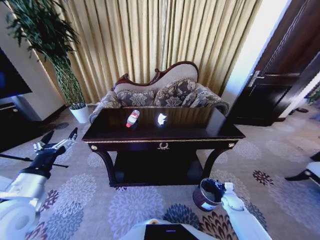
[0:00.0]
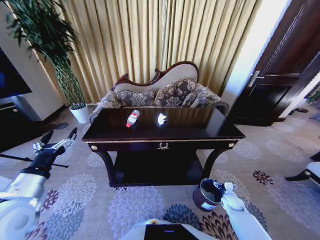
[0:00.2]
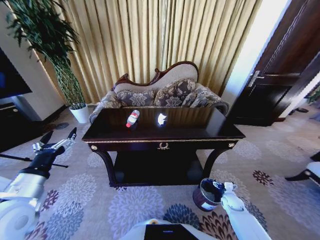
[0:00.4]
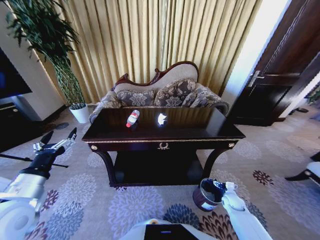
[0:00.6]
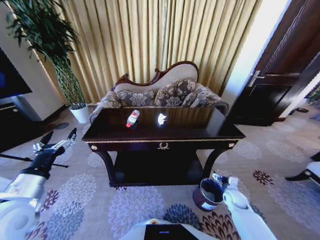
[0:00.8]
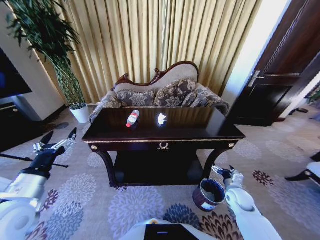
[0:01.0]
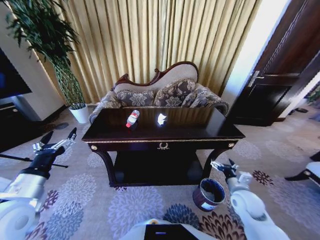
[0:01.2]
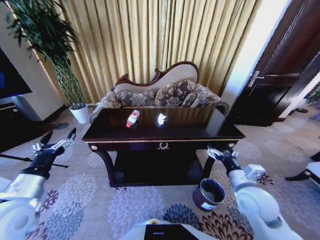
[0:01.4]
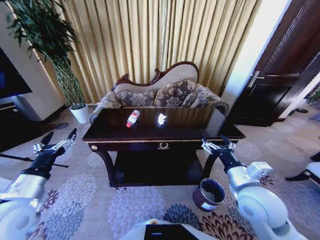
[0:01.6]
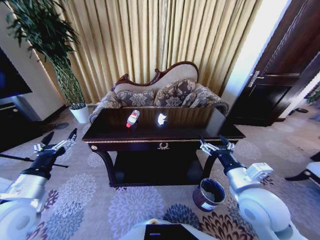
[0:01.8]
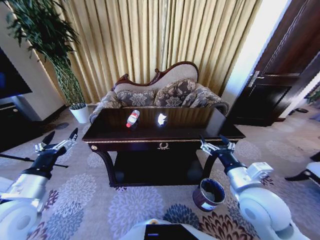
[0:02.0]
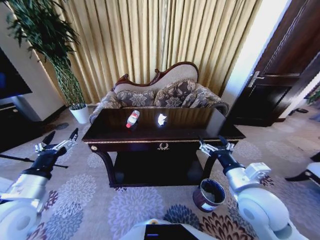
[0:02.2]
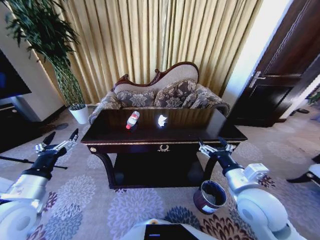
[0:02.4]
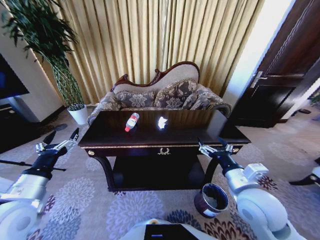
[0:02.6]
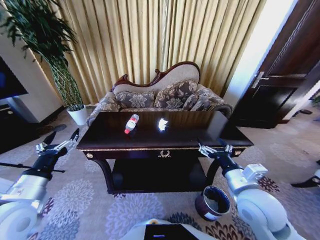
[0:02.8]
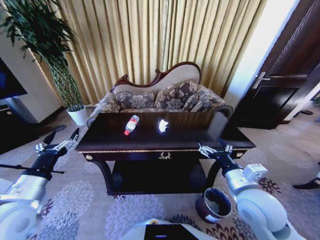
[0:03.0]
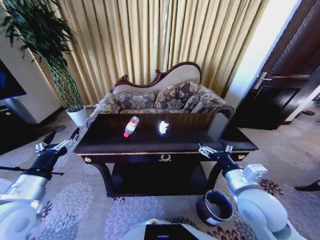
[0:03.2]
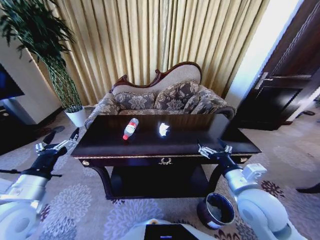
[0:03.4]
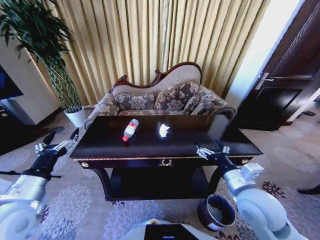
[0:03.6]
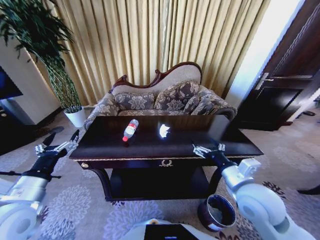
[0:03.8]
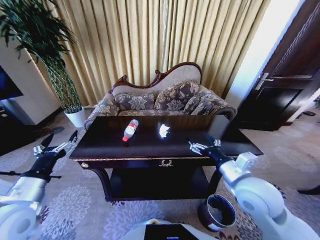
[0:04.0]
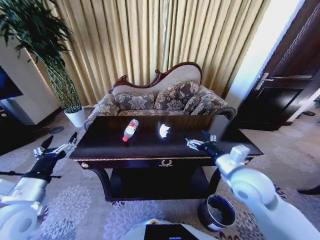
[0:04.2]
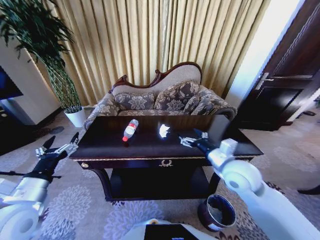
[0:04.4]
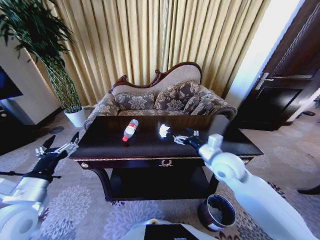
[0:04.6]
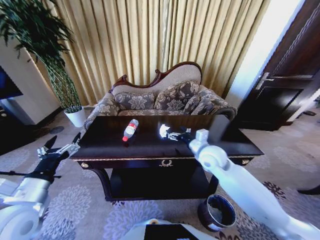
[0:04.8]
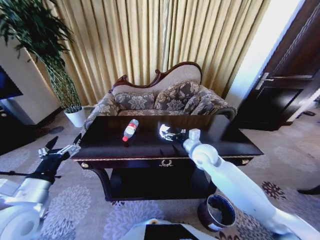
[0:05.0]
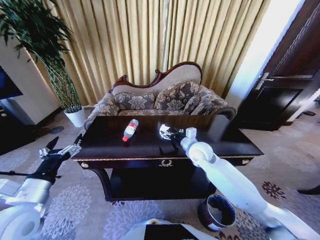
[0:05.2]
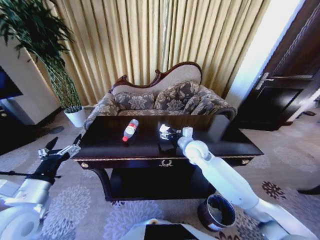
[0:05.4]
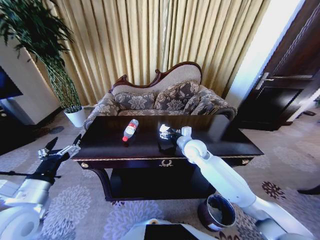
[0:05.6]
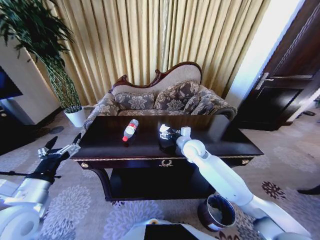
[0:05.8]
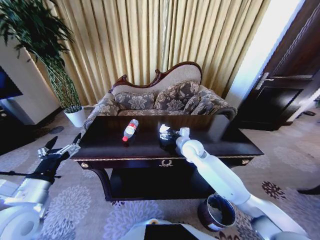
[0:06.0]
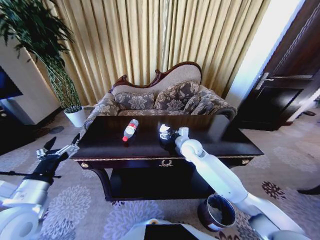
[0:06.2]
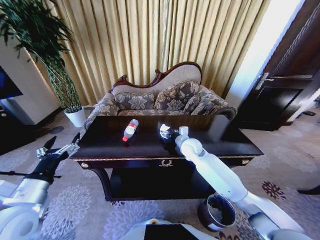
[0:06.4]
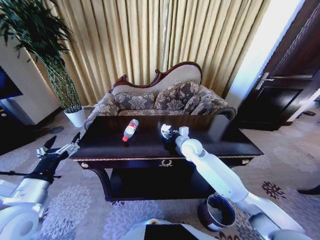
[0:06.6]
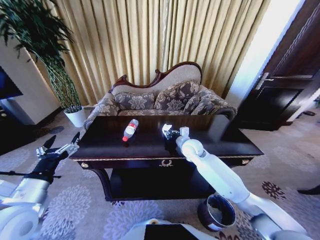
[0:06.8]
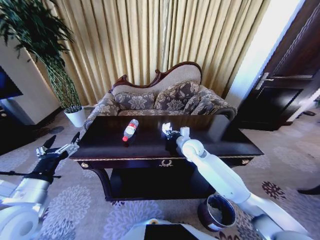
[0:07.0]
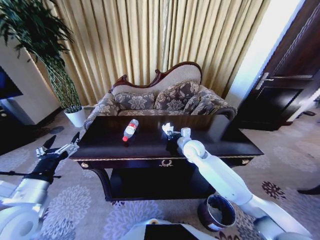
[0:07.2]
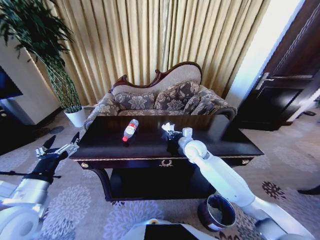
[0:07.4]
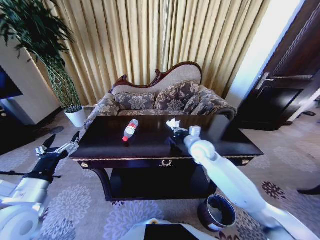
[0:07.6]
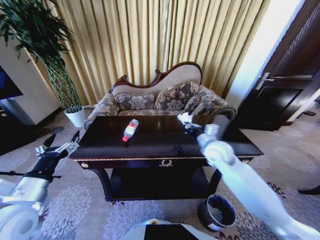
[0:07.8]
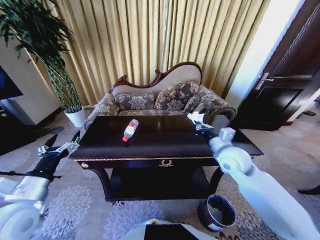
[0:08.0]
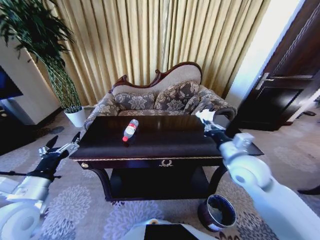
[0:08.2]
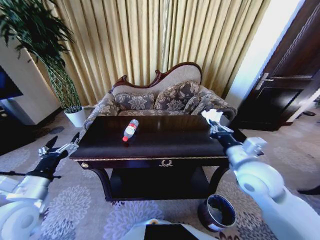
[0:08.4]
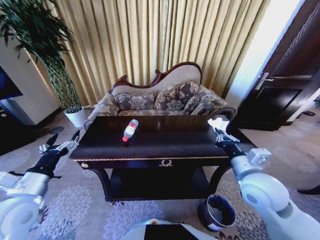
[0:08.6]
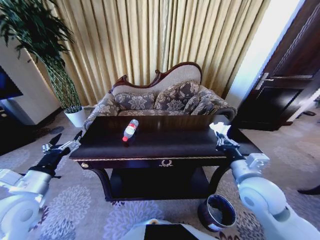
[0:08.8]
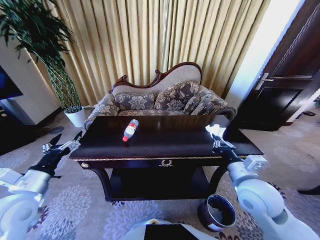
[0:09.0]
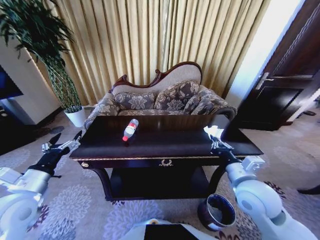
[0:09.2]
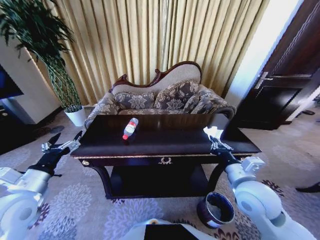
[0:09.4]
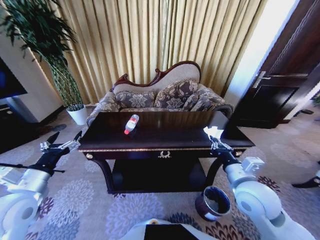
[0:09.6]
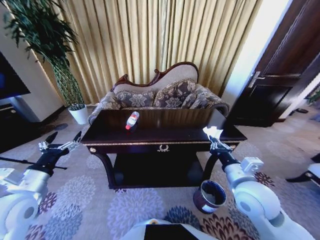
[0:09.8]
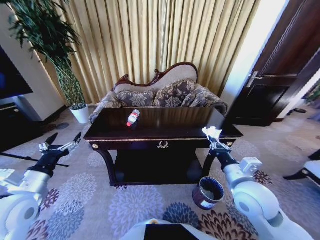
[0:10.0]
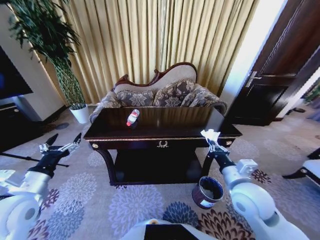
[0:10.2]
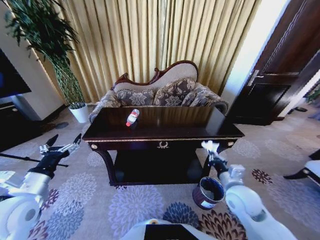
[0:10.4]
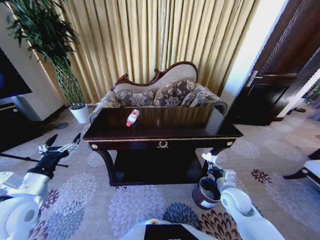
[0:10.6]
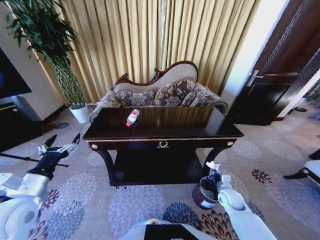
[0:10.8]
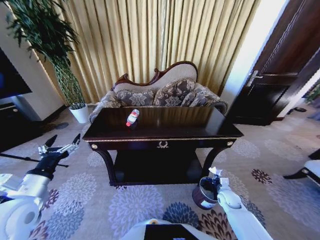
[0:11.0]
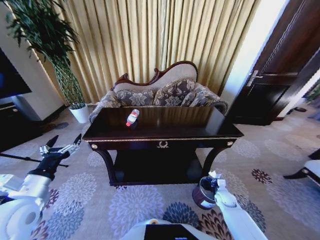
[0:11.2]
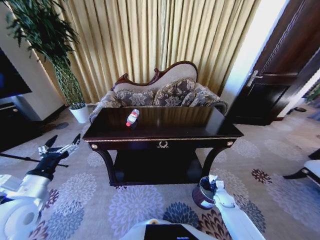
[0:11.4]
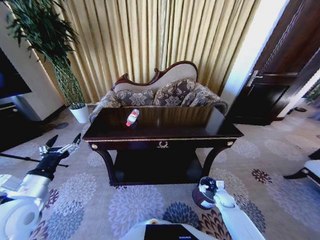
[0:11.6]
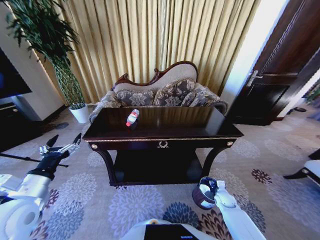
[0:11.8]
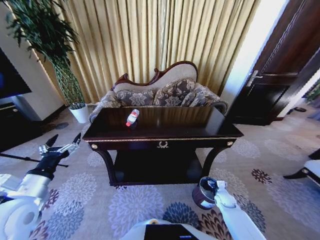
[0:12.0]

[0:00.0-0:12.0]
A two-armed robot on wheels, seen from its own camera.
Task of the whole recording: Move to the front of the table and place the trash on the table into the trash bin.
0:00.0 to 0:01.6: The right gripper shifts roughly 35 cm upward and to the left.
0:03.0 to 0:04.4: The right gripper goes some 10 cm forward.
0:04.4 to 0:06.0: The right gripper shifts approximately 20 cm forward, to the left and downward.
0:06.0 to 0:07.6: The right gripper changes place by roughly 5 cm, and closes its fingers.
0:07.6 to 0:09.0: The right gripper heads backward, covering approximately 20 cm.
0:09.0 to 0:10.4: The right gripper goes roughly 10 cm downward.
0:10.4 to 0:12.0: The right gripper goes roughly 25 cm downward, and opens up.

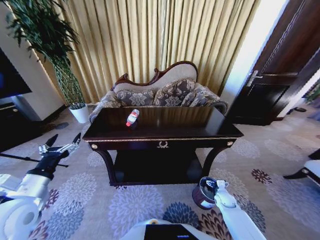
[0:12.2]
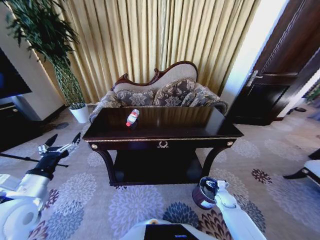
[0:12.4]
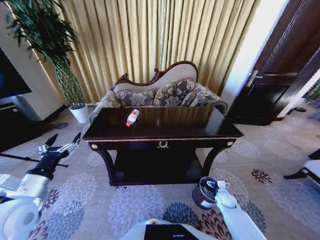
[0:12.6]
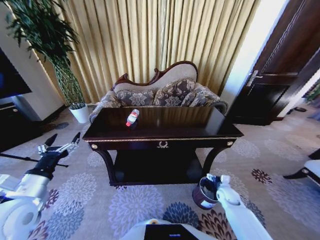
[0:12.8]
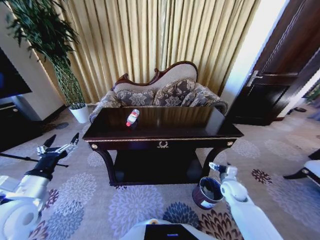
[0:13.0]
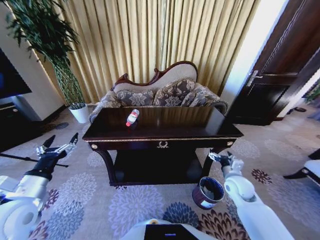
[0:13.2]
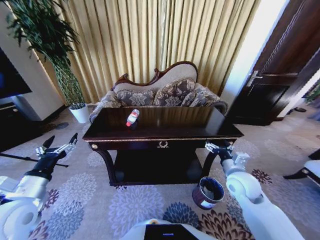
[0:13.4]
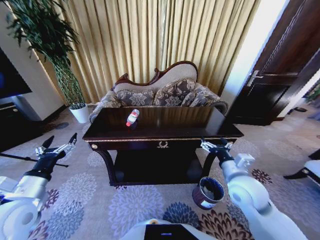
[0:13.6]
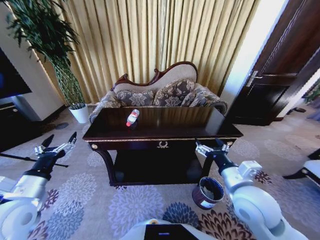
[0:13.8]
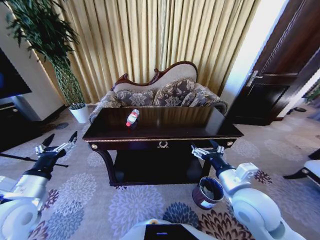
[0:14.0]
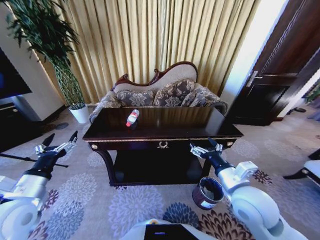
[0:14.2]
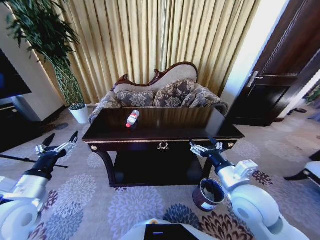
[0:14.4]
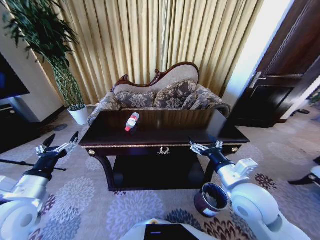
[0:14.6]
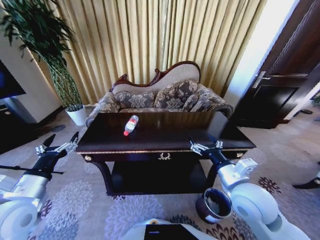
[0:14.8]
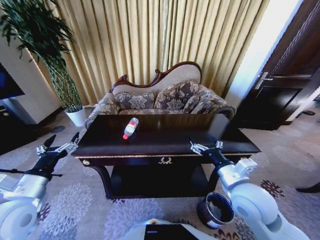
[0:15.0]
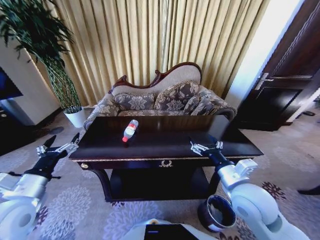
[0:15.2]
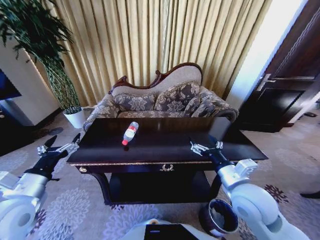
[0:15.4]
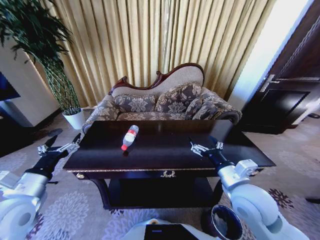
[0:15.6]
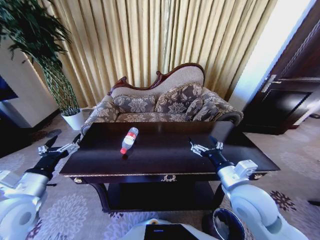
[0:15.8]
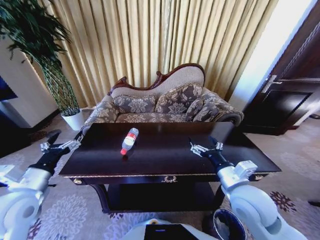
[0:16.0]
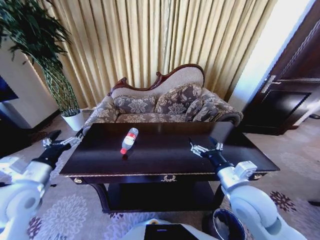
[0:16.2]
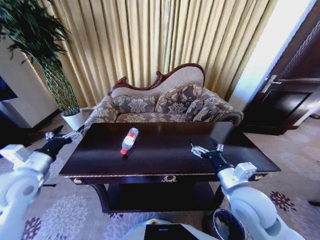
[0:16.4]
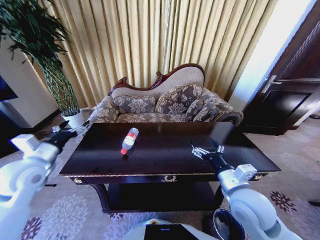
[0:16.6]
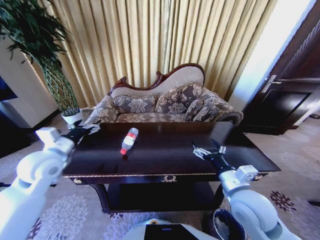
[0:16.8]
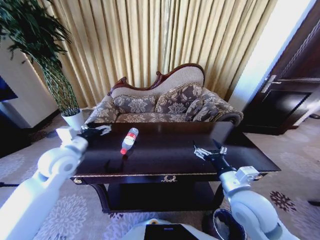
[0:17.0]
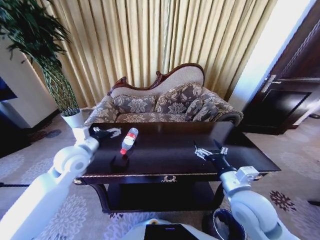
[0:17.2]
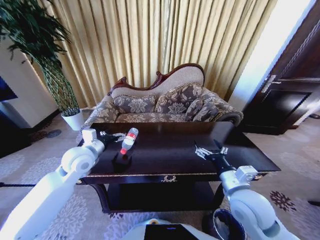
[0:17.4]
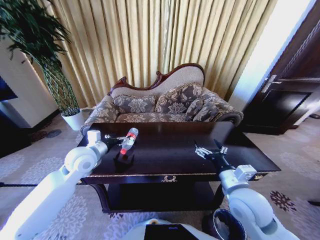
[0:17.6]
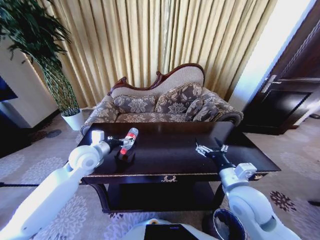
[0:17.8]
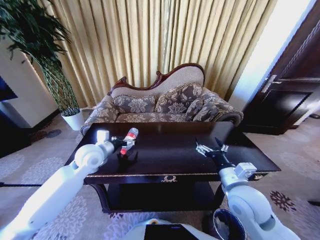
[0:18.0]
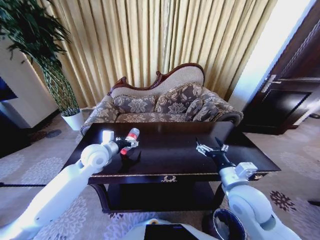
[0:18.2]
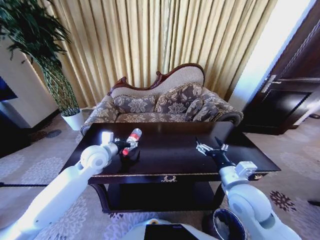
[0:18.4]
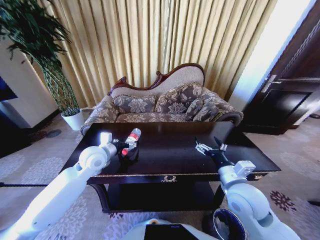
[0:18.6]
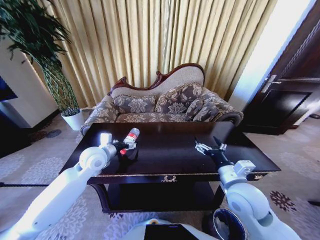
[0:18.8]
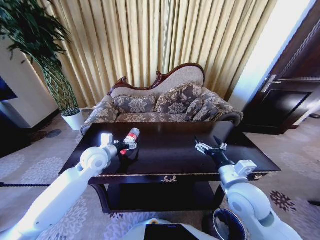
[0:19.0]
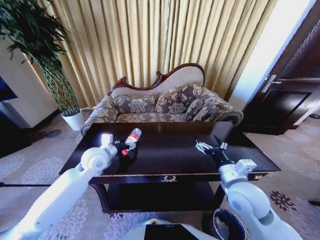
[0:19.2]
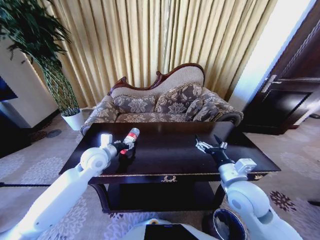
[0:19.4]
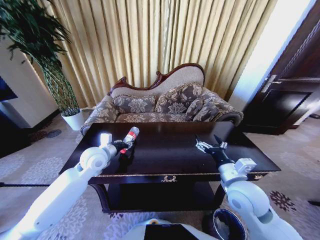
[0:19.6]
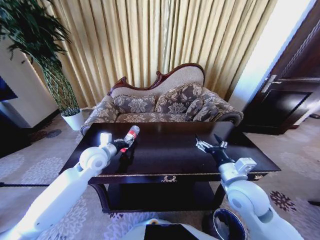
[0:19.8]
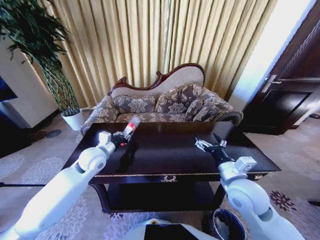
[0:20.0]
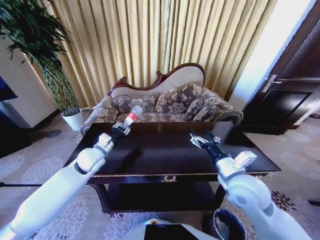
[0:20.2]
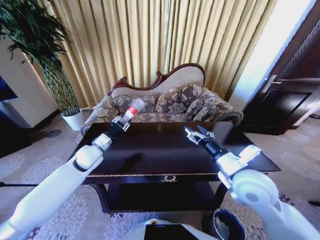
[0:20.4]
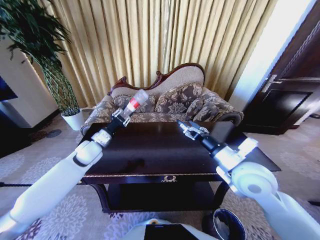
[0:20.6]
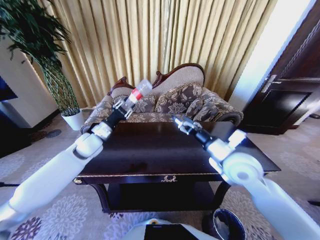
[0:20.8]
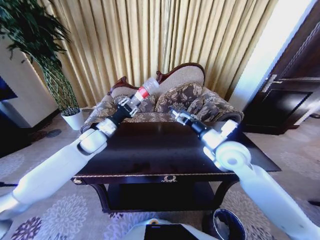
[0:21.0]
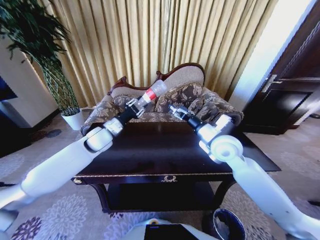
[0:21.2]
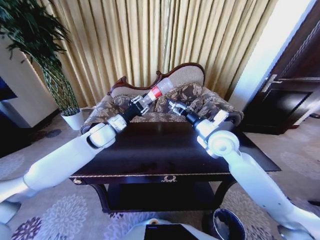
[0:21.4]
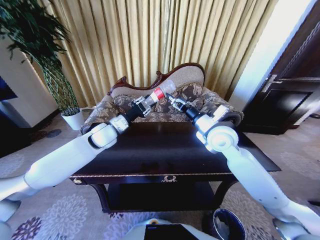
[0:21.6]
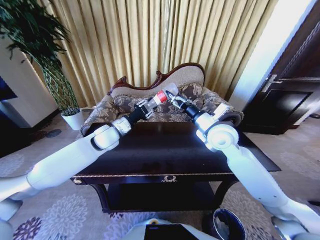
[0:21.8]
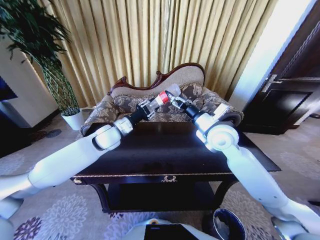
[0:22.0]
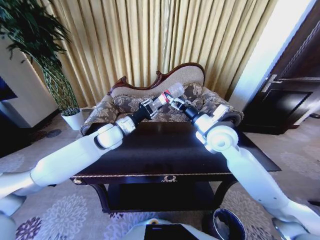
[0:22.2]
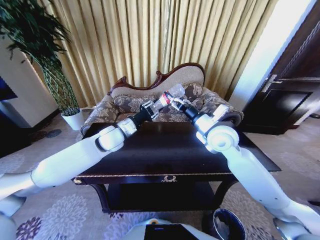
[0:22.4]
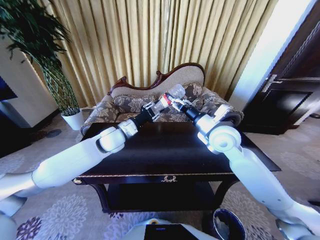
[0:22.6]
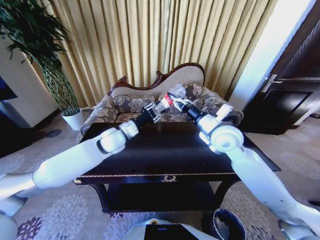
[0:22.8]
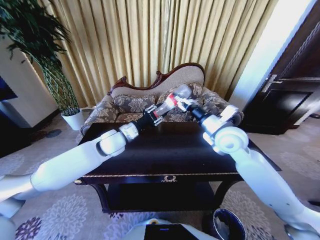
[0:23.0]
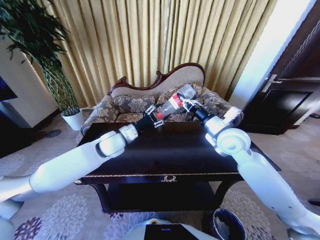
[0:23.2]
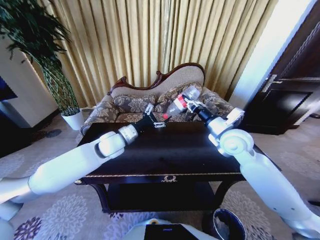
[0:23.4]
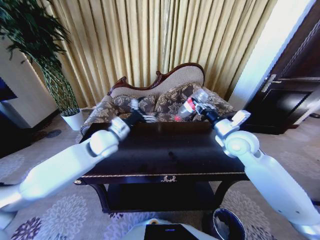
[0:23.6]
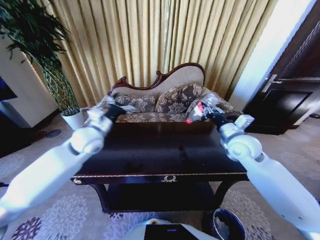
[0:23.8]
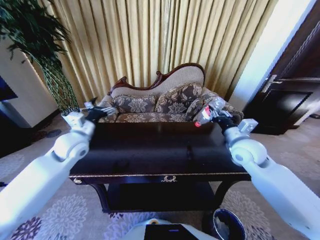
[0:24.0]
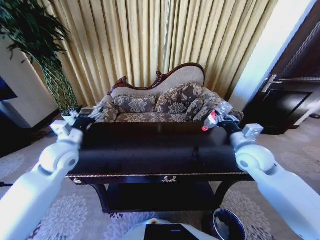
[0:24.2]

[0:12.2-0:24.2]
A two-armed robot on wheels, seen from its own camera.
Task of the whole recording: Move to the front of the table and place the trash on the table into the trash bin.
0:12.2 to 0:13.8: The right gripper moves upward, some 35 cm.
0:15.2 to 0:16.6: The left gripper is displaced forward by about 10 cm.
0:16.6 to 0:18.2: The left gripper travels to the right and forward by some 20 cm.
0:18.2 to 0:19.8: The left gripper closes its fingers.
0:19.8 to 0:21.2: The left gripper moves forward, about 5 cm; the right gripper shifts about 15 cm forward and upward.
0:21.2 to 0:22.6: The right gripper closes its fingers. The left gripper goes some 5 cm to the right.
0:22.6 to 0:24.2: The left gripper travels to the left and backward by about 15 cm, and opens its fingers. The right gripper is displaced to the right and backward by some 10 cm, and closes.
